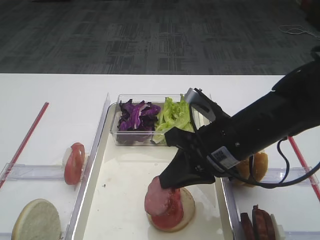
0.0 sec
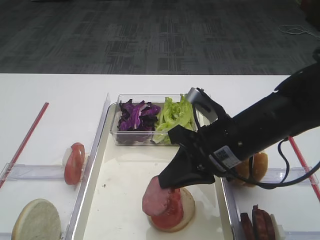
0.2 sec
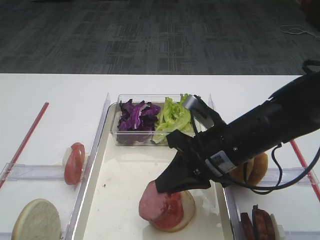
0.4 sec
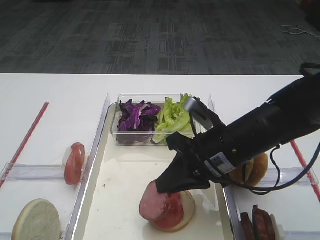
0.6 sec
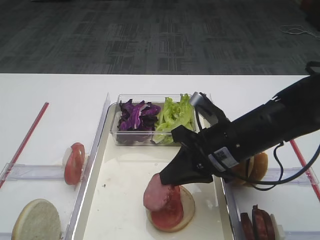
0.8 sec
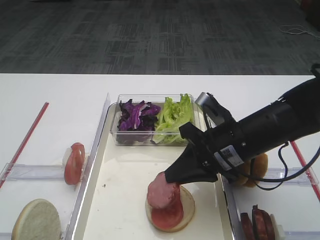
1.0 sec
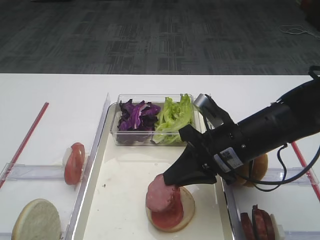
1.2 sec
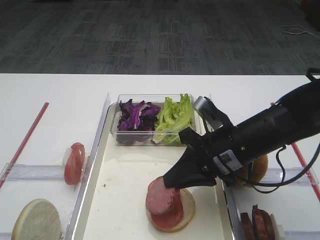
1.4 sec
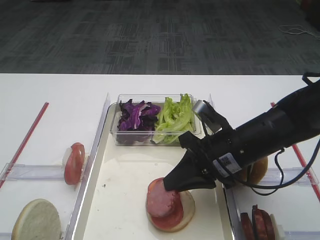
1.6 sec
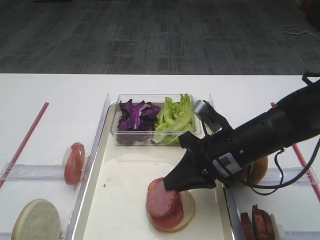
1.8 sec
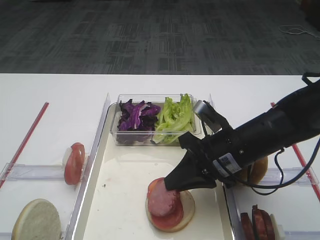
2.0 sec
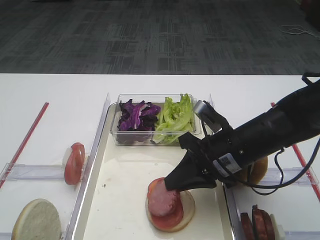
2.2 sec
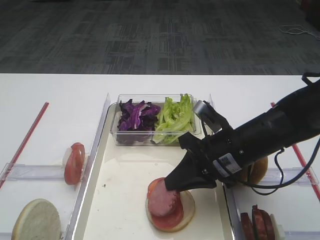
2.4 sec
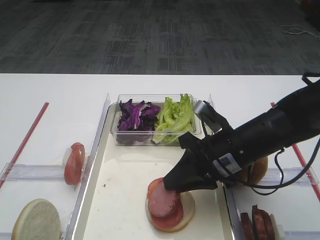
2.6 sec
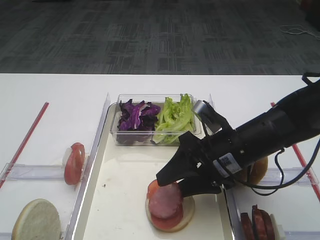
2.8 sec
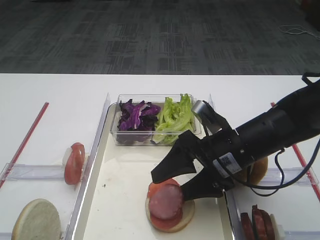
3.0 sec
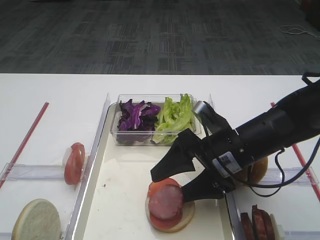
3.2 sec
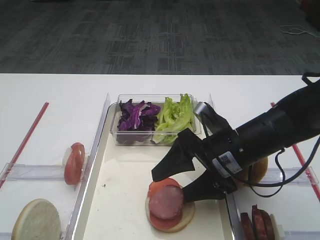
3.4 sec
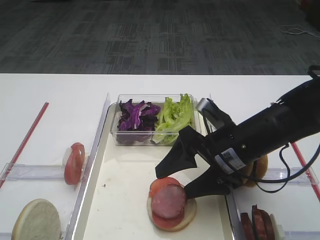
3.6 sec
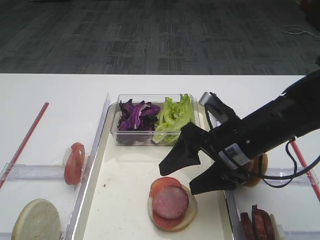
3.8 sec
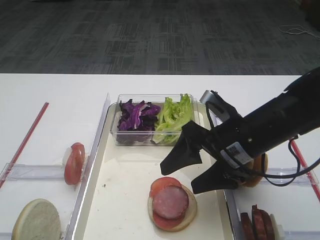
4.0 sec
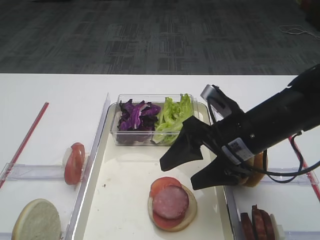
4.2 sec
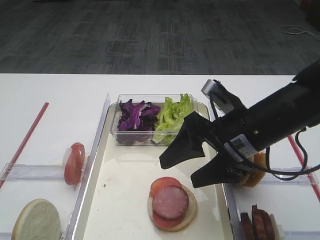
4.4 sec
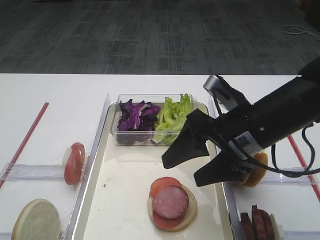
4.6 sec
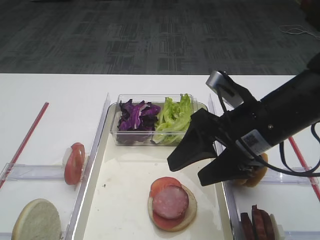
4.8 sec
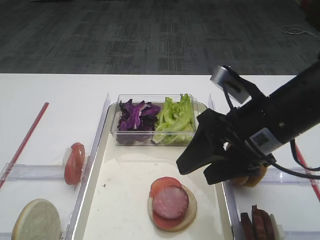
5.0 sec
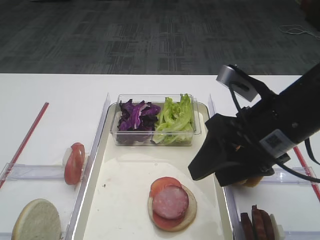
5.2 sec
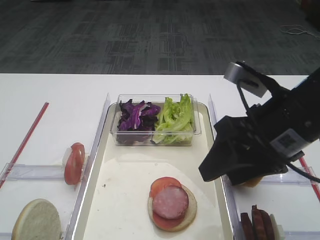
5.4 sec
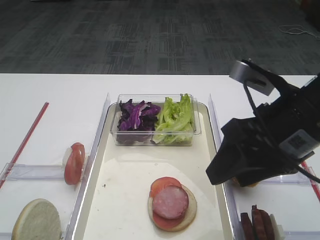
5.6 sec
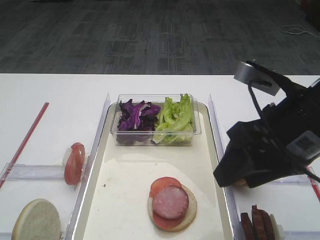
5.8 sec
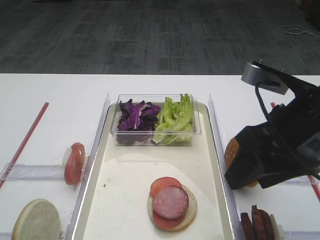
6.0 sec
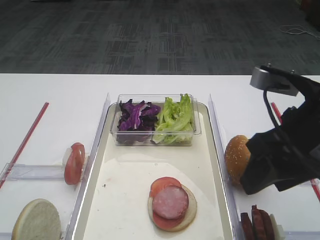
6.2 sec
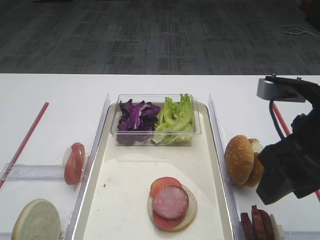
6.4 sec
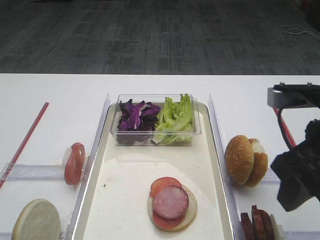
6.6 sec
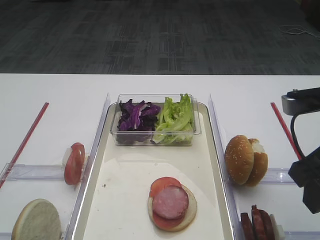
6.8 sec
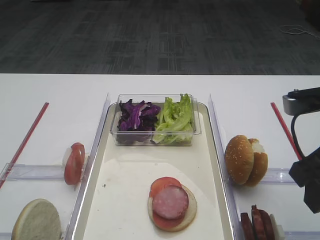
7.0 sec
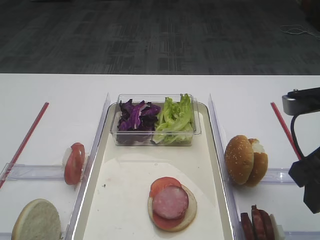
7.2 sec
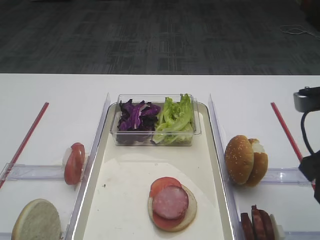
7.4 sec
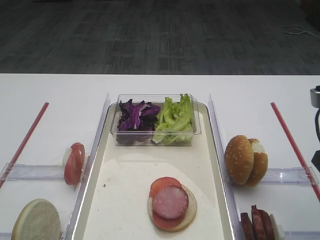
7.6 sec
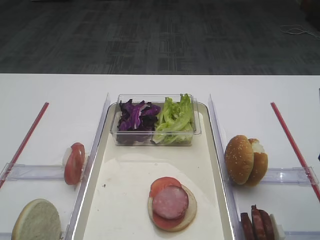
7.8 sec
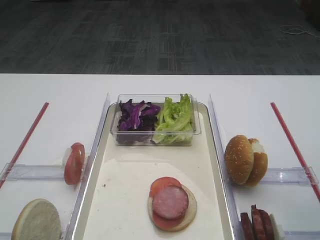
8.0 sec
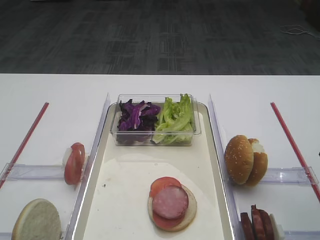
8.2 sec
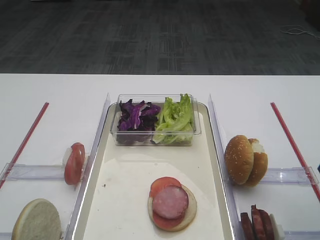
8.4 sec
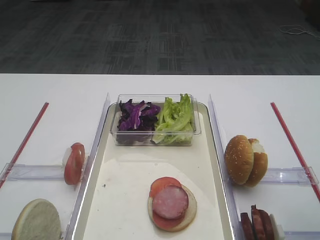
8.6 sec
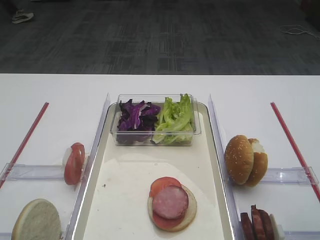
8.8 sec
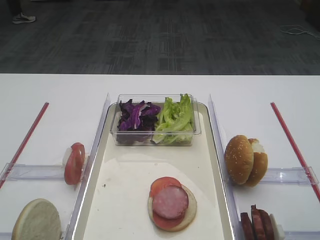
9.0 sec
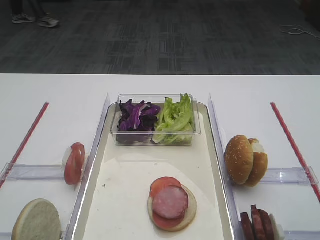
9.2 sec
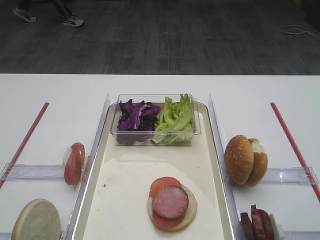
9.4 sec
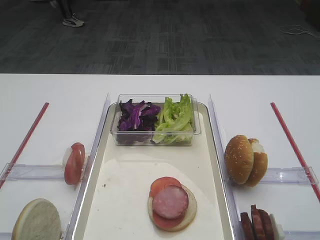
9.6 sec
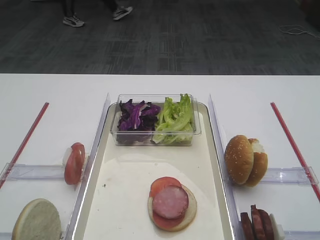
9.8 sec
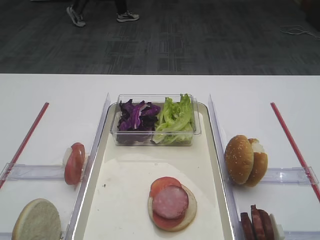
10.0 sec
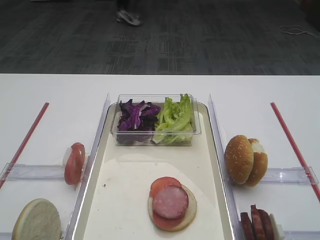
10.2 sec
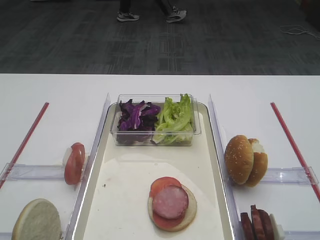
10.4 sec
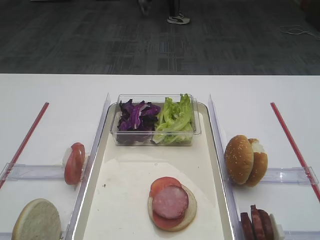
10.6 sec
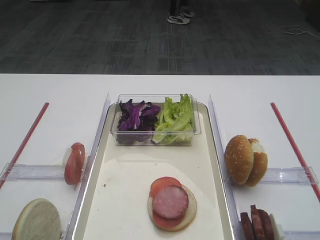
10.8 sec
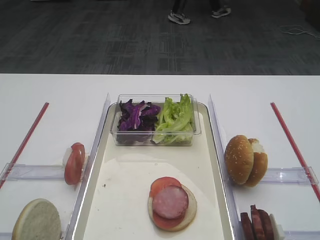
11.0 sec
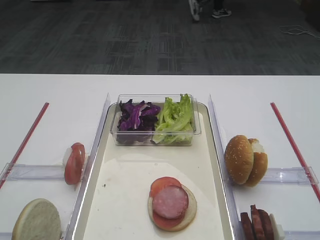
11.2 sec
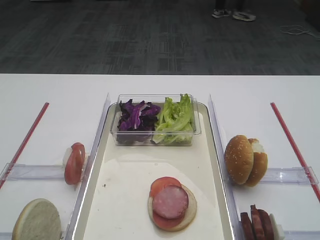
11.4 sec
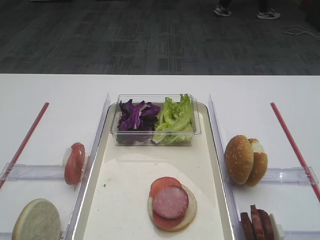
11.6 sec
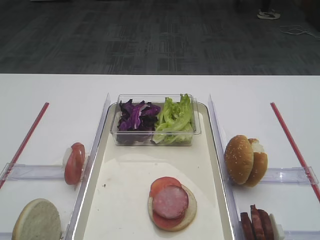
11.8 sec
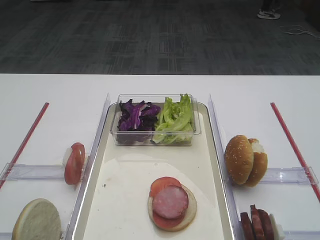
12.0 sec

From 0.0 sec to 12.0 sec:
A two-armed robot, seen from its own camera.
Step, from 0.0 sec to 4.4 sec: Place the cutlet on the tomato slice with the right gripper.
From 0.0 sec to 1.6 sec: The grippers stay close to where they were, moving slightly.
From 1.6 sec to 3.0 sec: The right gripper opens.
From 3.0 sec to 4.4 sec: The right gripper moves approximately 5 cm.
From 4.4 sec to 6.0 sec: The right gripper moves upward and backward, some 10 cm.
From 6.0 sec to 7.6 sec: The right gripper is displaced to the right by approximately 10 cm.
From 7.6 sec to 9.0 sec: The right gripper goes about 5 cm backward.

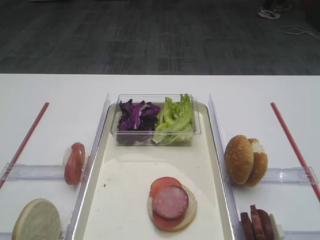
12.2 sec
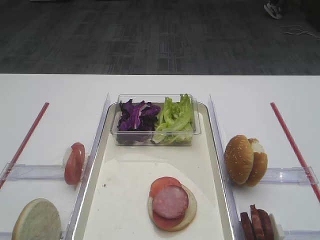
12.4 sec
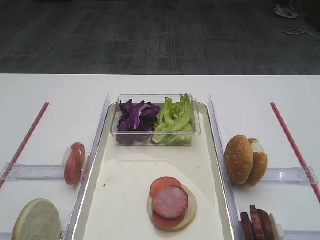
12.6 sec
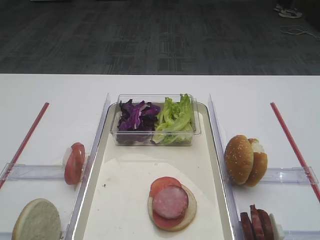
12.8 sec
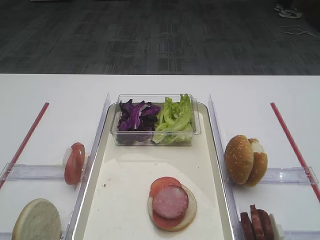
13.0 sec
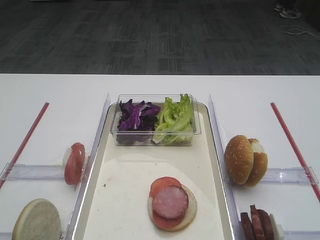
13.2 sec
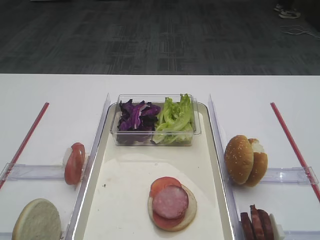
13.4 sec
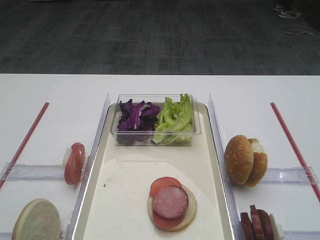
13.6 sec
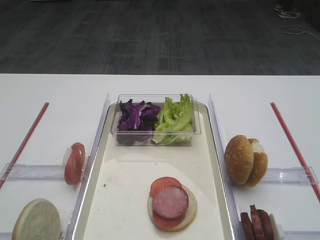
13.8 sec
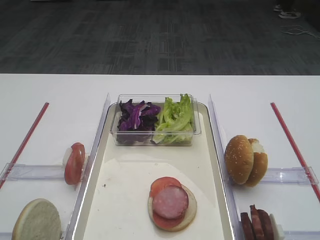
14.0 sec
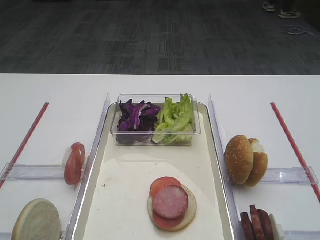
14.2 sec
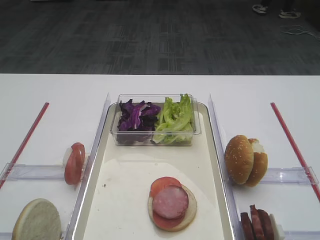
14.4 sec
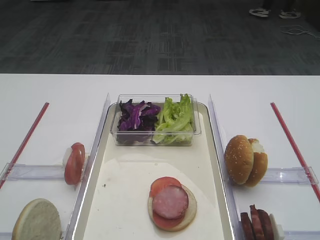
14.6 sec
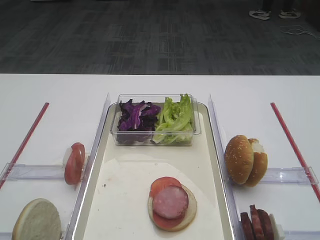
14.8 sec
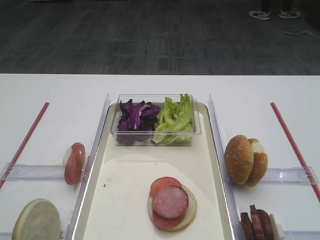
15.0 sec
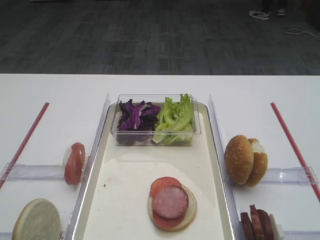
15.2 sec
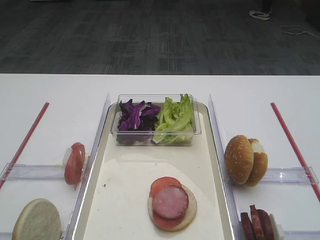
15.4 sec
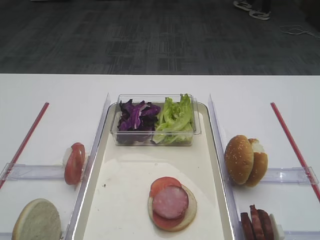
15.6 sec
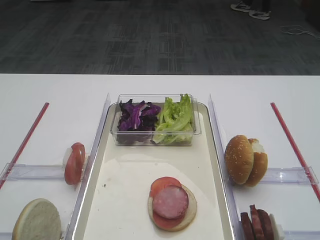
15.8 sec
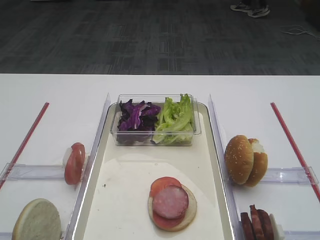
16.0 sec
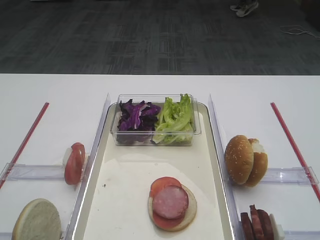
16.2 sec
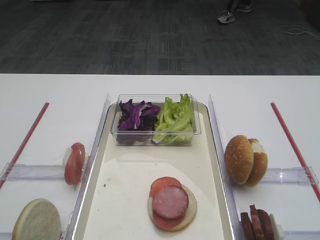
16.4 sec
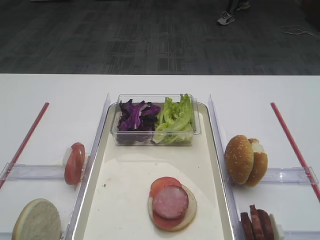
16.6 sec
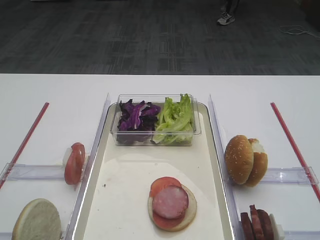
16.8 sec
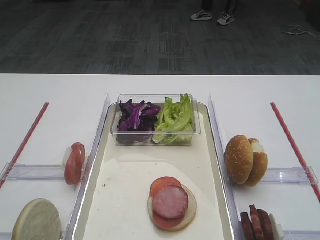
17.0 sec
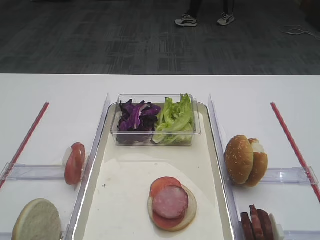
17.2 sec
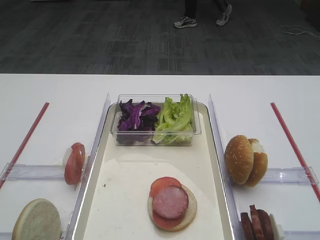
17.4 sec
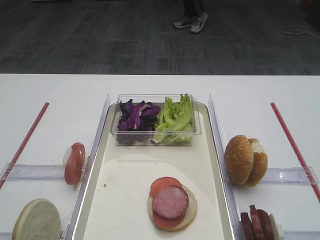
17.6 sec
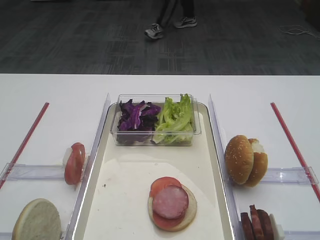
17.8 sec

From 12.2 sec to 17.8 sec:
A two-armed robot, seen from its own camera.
From 13.6 sec to 17.8 sec: Neither gripper changes place.

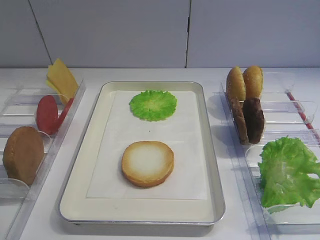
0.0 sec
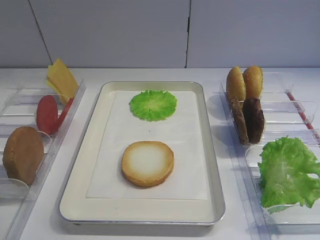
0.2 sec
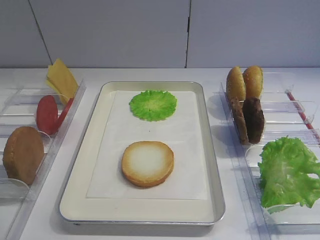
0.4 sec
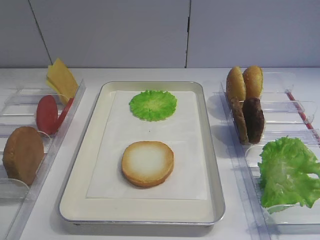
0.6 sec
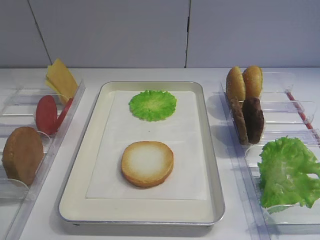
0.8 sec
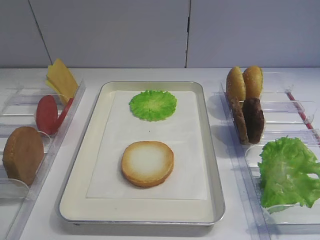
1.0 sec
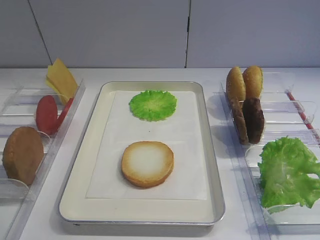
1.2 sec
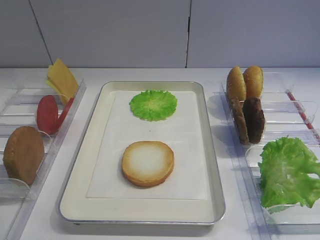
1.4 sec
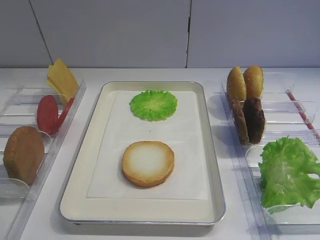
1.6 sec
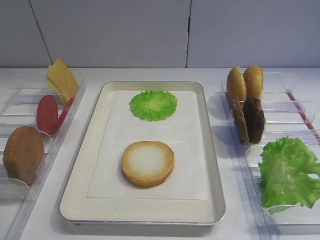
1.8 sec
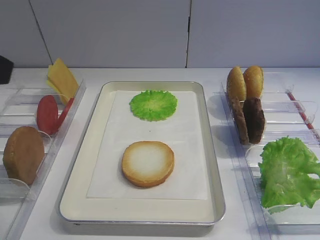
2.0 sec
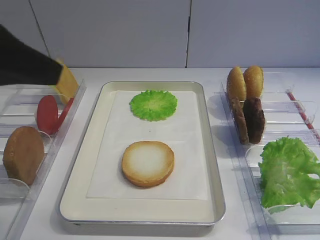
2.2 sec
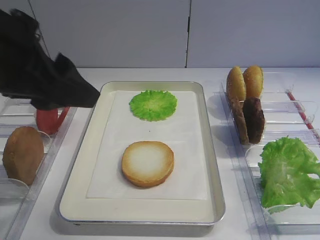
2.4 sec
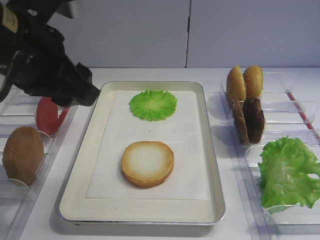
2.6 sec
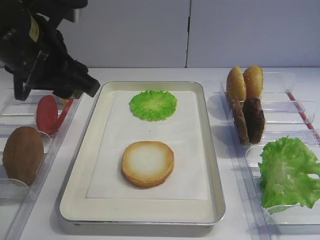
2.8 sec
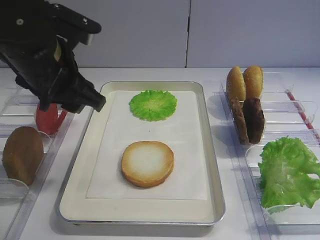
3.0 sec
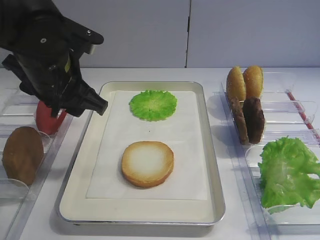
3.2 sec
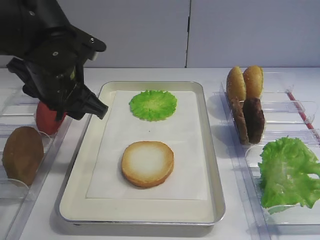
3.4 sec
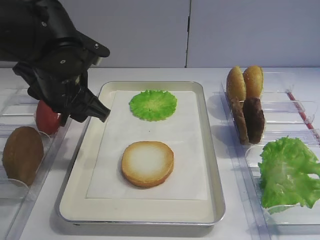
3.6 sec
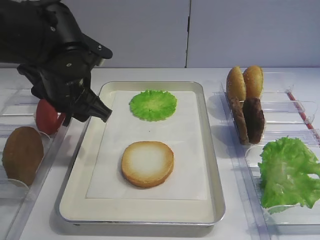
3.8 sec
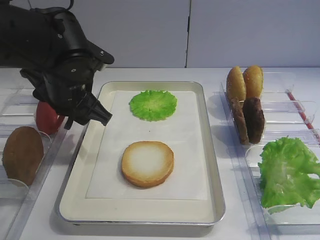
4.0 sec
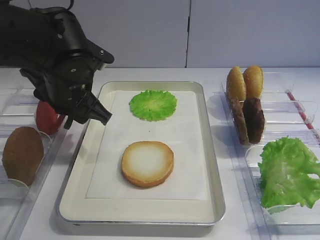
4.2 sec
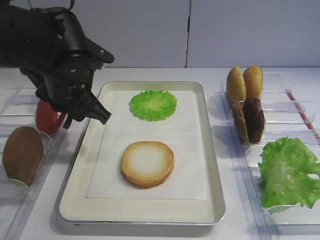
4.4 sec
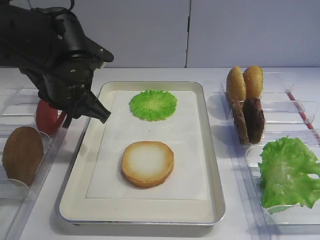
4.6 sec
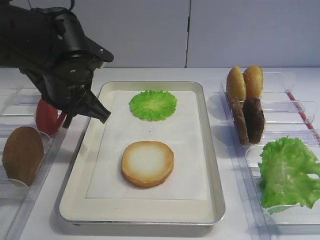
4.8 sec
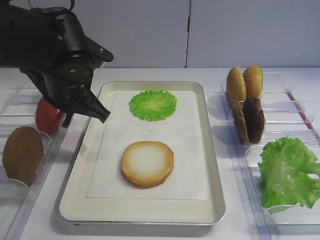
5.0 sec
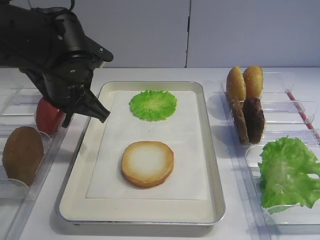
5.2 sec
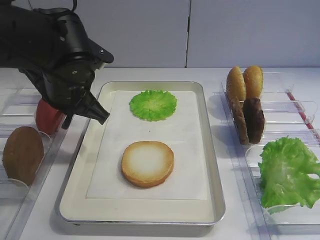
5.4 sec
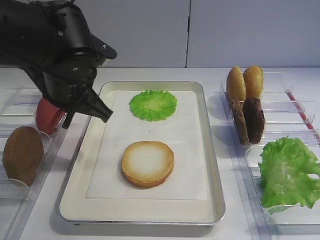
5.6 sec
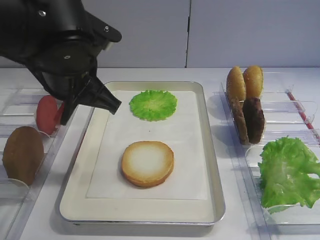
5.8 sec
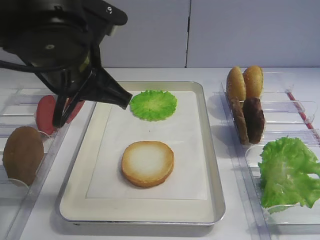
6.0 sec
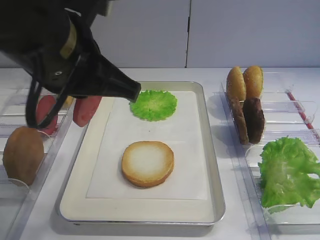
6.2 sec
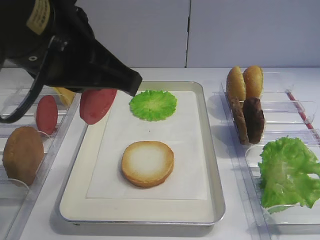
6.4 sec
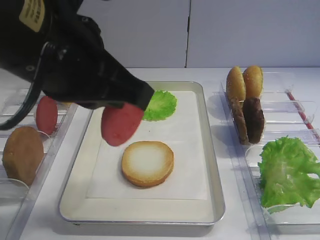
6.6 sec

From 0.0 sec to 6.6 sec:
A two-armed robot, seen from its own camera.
Step, from 0.0 sec to 5.8 sec: Pick up the tomato slice with the left gripper.
From 1.6 sec to 3.2 sec: The left gripper moves forward and to the right, roughly 30 cm.
From 3.2 sec to 5.0 sec: The left gripper closes up.
From 5.0 sec to 6.6 sec: The left gripper travels backward and upward by about 20 cm.
